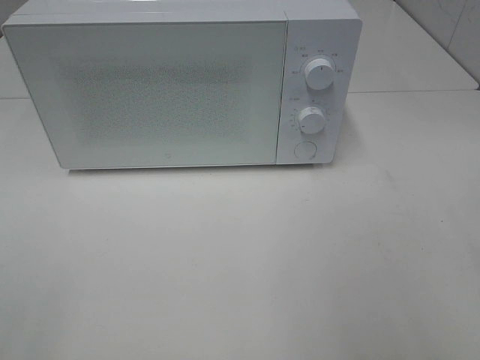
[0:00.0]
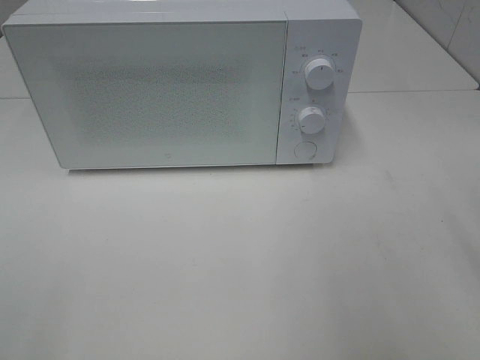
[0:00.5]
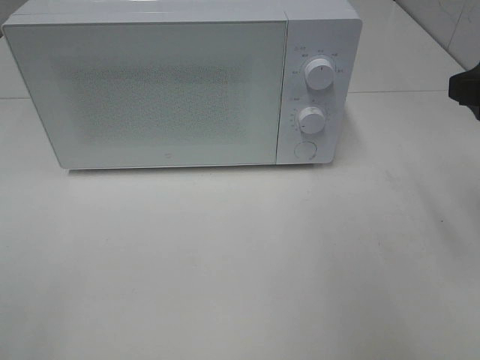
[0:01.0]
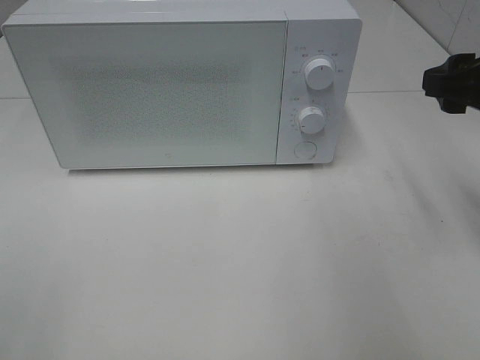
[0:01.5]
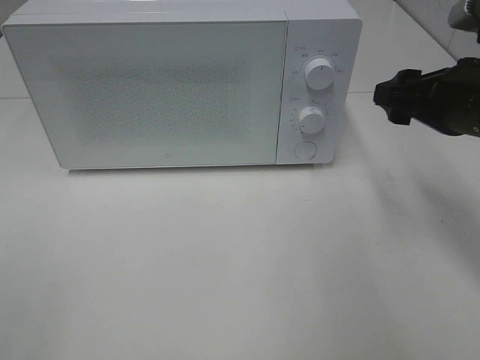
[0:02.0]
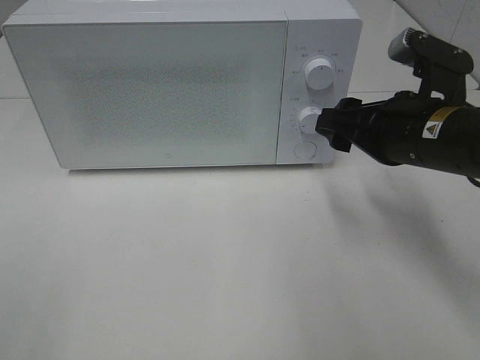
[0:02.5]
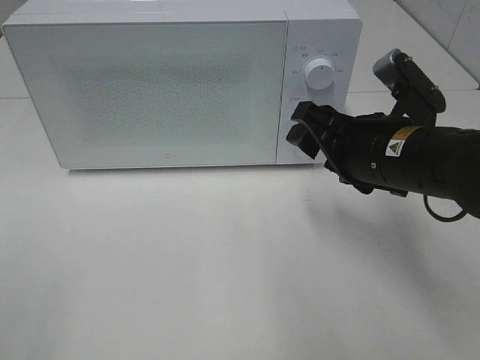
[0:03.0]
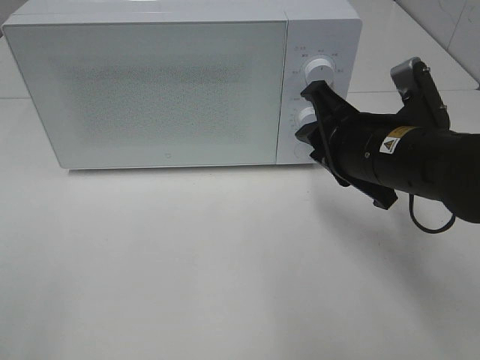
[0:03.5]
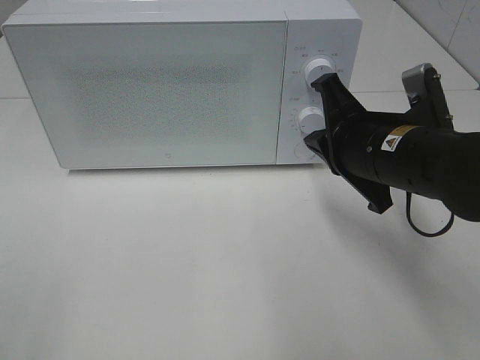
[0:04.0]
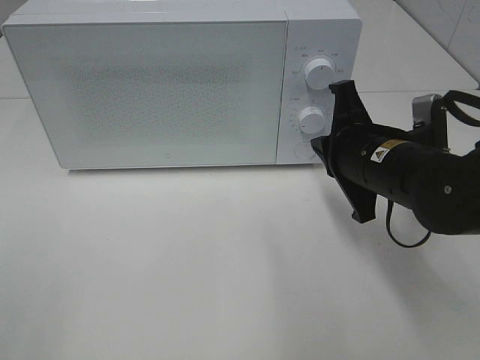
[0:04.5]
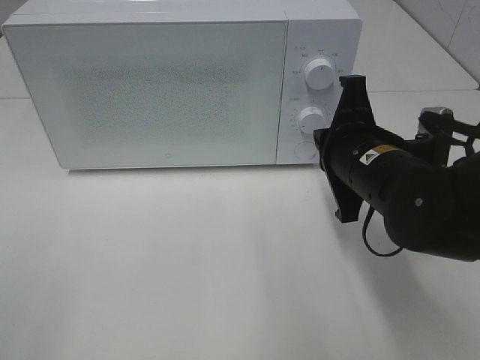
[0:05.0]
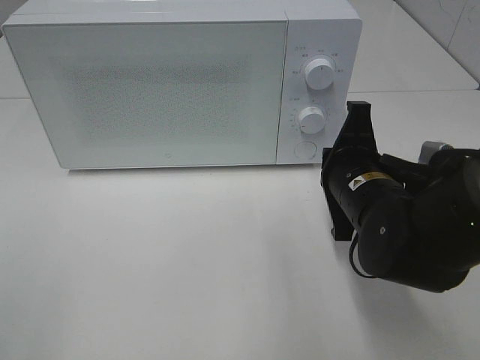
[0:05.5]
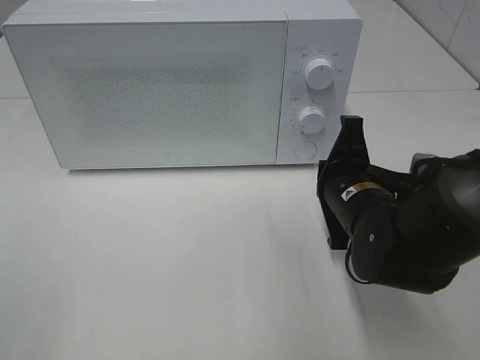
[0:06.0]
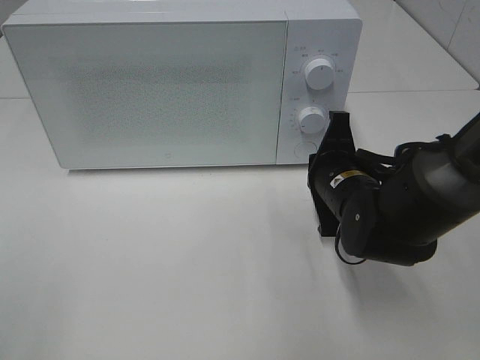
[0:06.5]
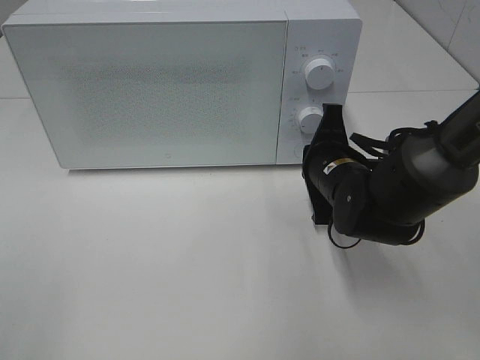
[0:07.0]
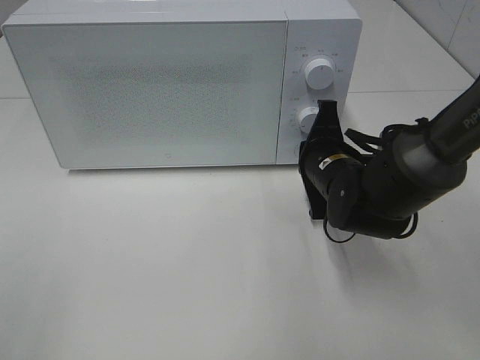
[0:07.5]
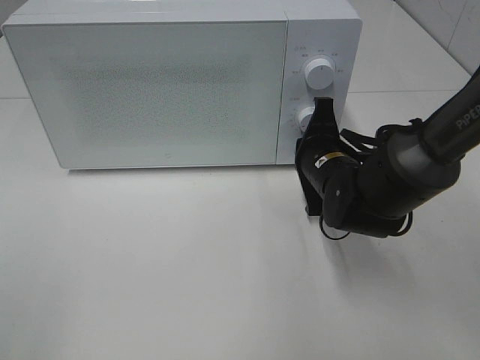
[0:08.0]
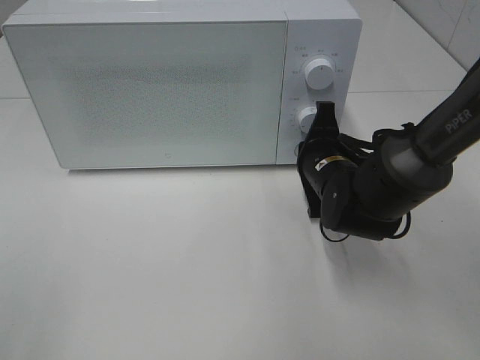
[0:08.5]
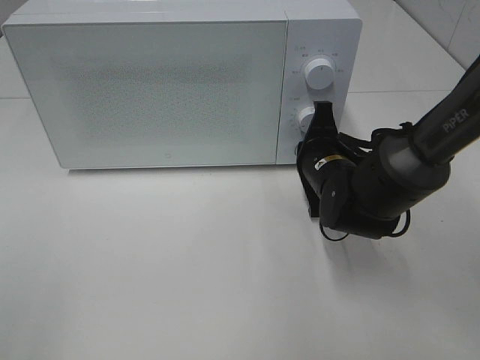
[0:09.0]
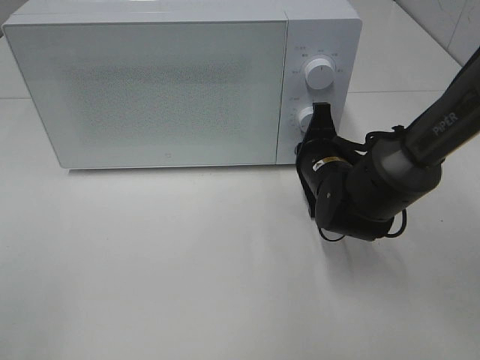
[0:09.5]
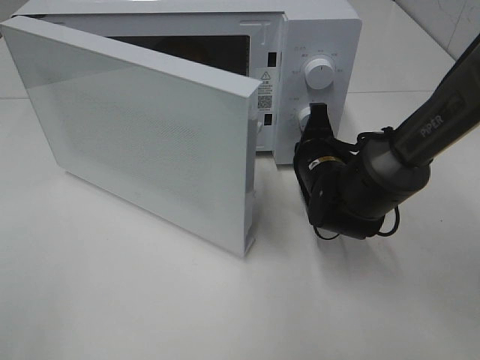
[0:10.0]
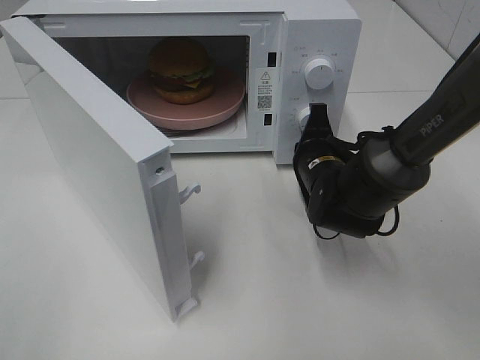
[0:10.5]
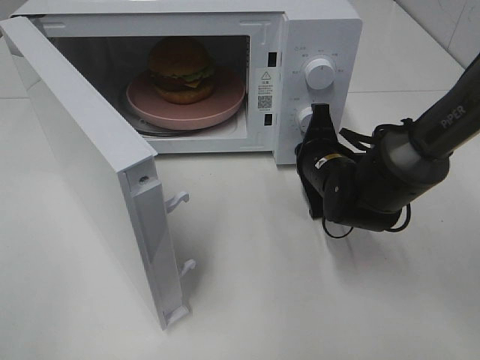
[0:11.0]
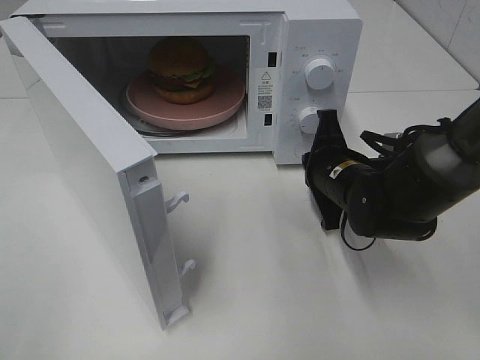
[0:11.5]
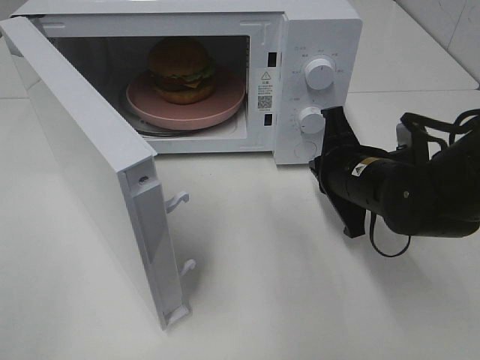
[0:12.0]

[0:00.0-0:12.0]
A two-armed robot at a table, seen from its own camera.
Task of the whole recording: Heat the burger.
Step, 0:00.0 to 0:11.0: Right hand: press the switch.
0:00.0 to 0:02.0: The right gripper travels forward and downward by roughly 20 cm.
0:02.0 to 0:04.0: The right gripper heads to the left, covering about 10 cm, and closes its fingers.
0:04.0 to 0:06.0: The right gripper goes approximately 5 cm downward.
0:06.0 to 0:08.0: The right gripper heads forward, covering some 5 cm.
0:08.0 to 0:10.0: The grippers stay close to where they were, moving slightly.
0:10.0 to 0:12.0: The right gripper is displaced backward by approximately 5 cm.

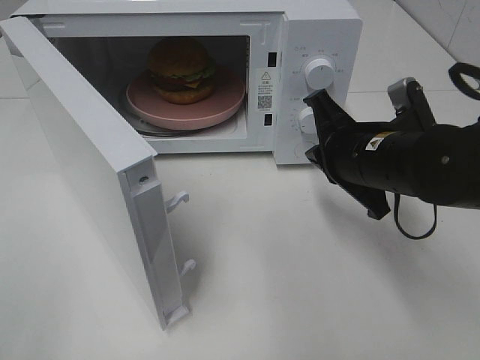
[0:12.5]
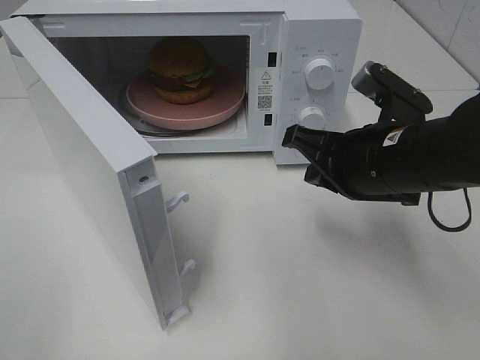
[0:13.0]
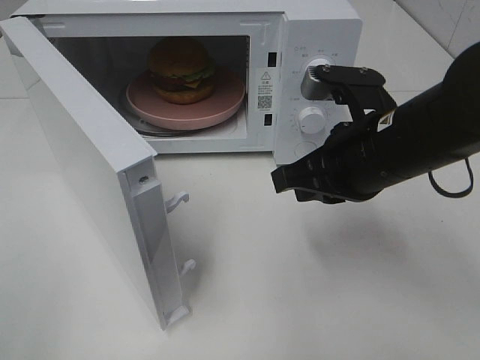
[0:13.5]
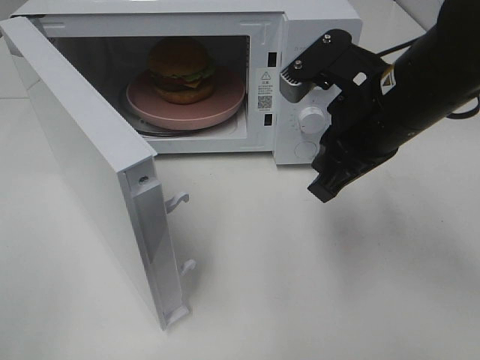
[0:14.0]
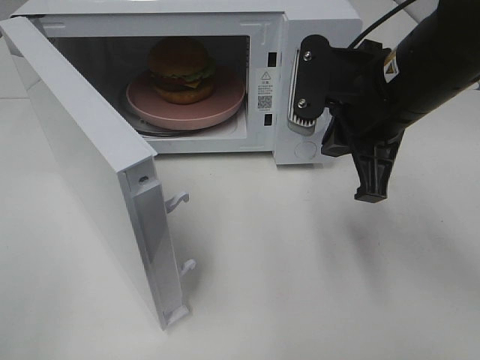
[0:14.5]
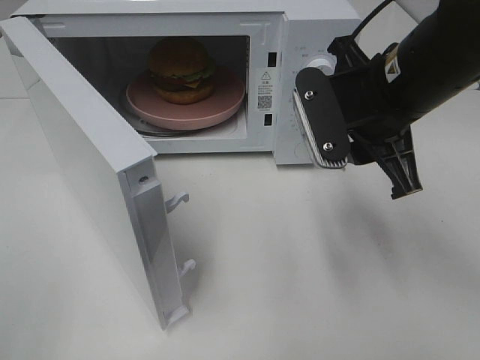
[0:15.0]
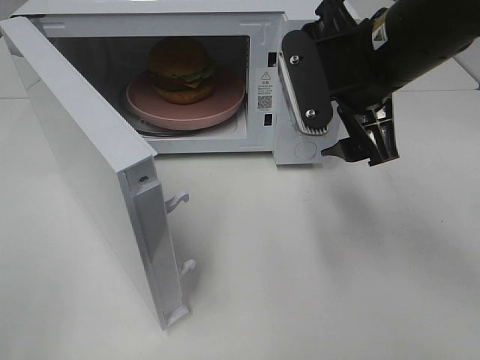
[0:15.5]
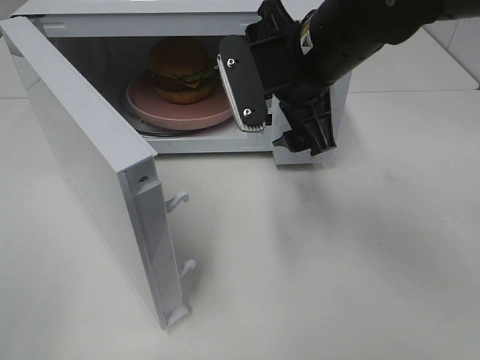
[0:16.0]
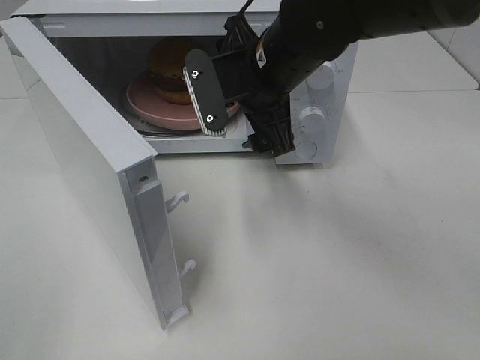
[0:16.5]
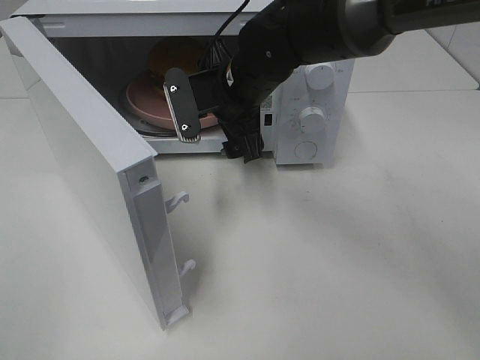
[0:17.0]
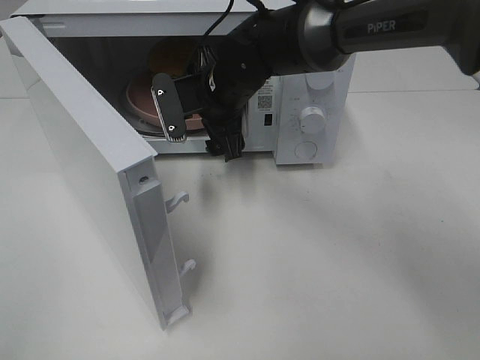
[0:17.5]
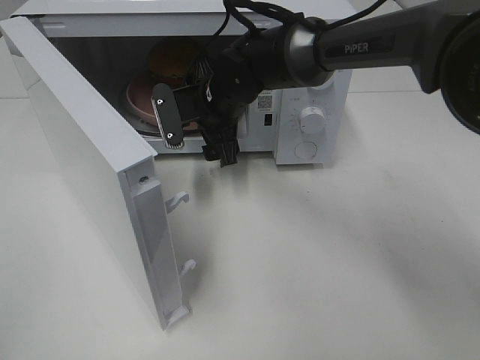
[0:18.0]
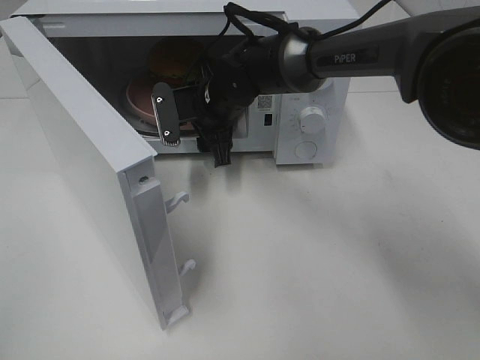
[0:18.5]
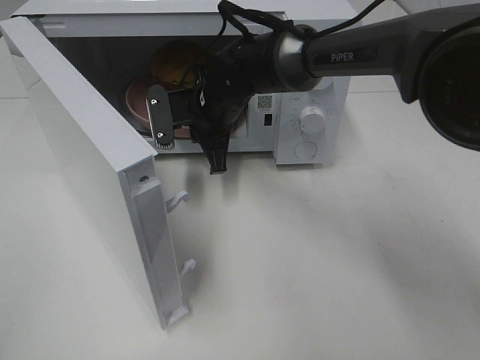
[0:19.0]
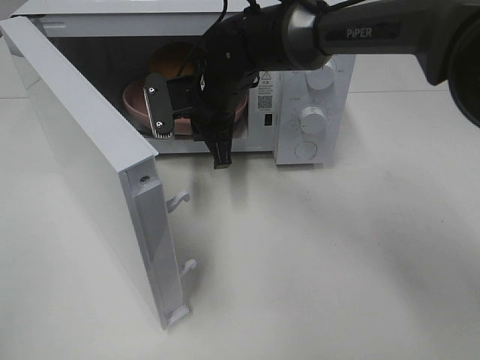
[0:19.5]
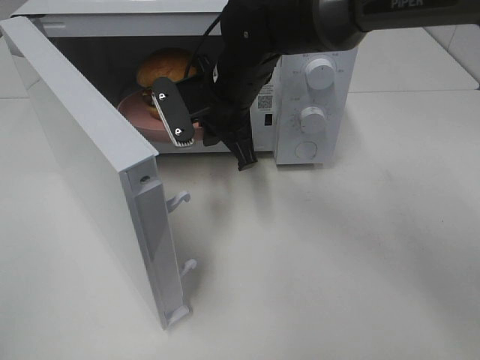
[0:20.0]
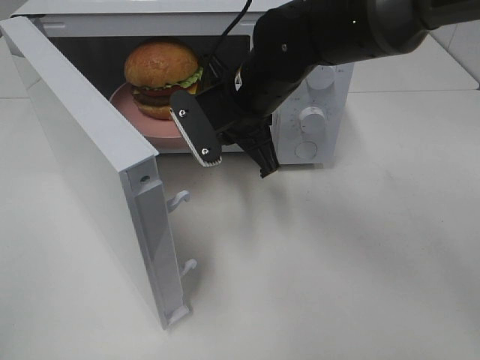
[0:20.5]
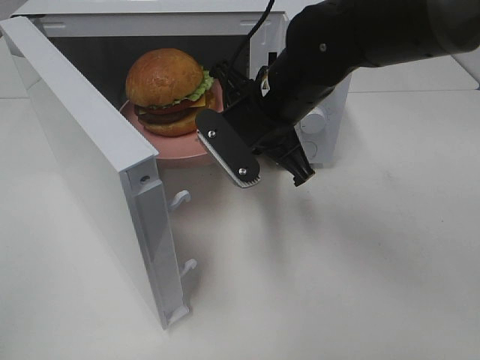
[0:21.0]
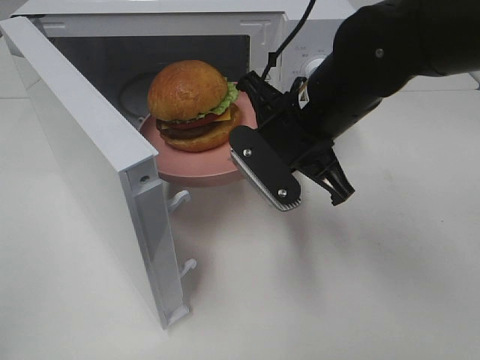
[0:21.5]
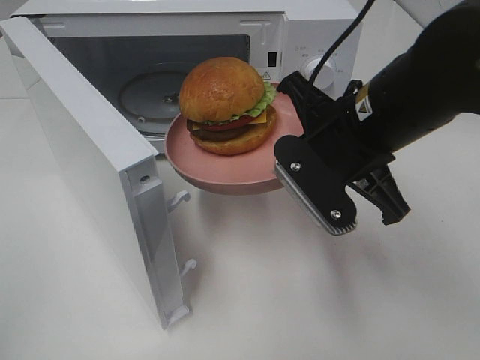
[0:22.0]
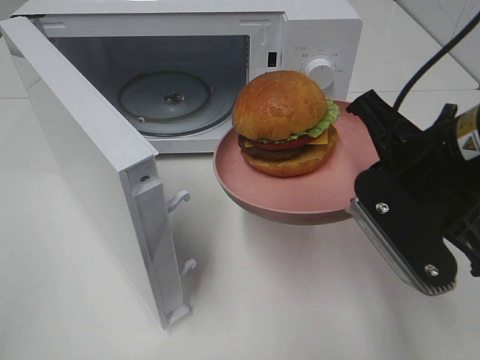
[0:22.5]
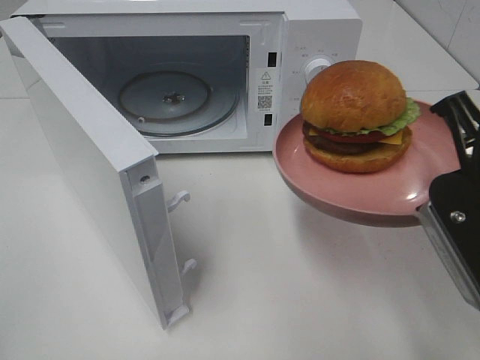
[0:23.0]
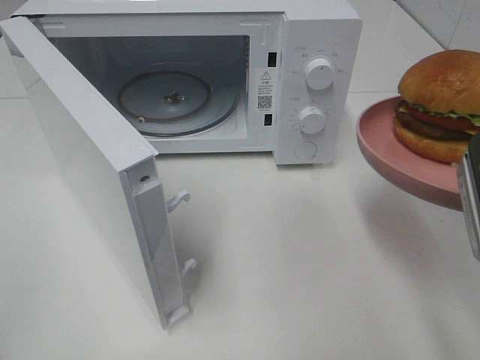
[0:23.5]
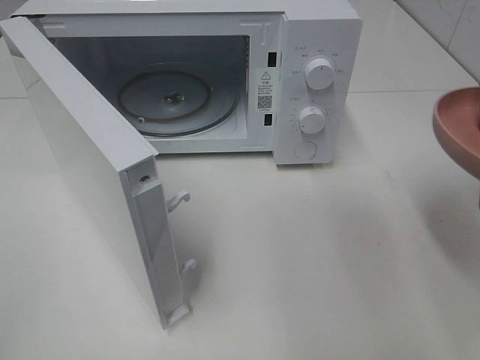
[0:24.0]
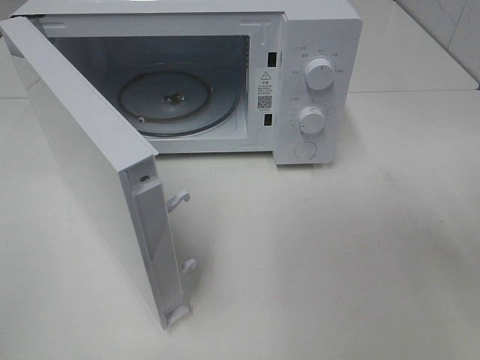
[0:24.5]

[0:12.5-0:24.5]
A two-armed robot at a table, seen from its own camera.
Task of the whole recording: Heat the burger.
Step, 0:12.5 to 0:19.0: Right hand: grab the plate with the hamburger.
0:12.5 to 0:14.5: The right gripper goes roughly 10 cm upward.
0:14.5 to 0:16.5: The right gripper heads to the left and forward, covering about 10 cm, and opens its fingers.
0:16.5 to 0:18.5: The right gripper moves downward, forward and to the left, some 15 cm.
0:18.5 to 0:20.5: The right gripper travels backward and upward by roughly 10 cm, and closes up.
0:20.5 to 0:22.5: The right gripper travels backward and to the right by about 20 cm.
0:22.5 to 0:24.5: The right gripper heads to the right, covering approximately 10 cm.

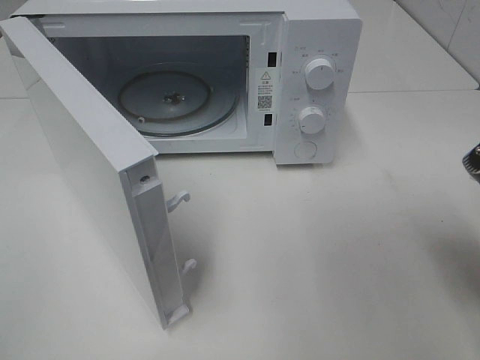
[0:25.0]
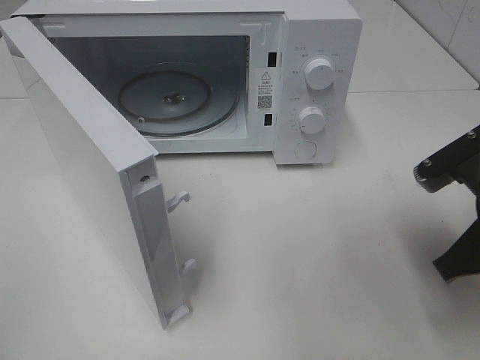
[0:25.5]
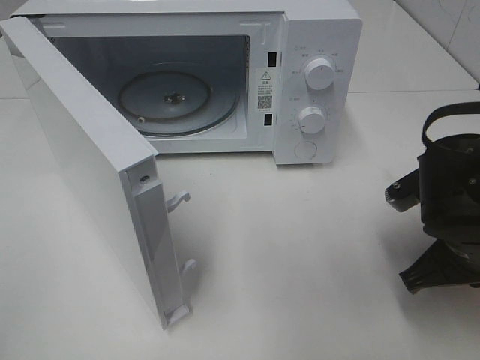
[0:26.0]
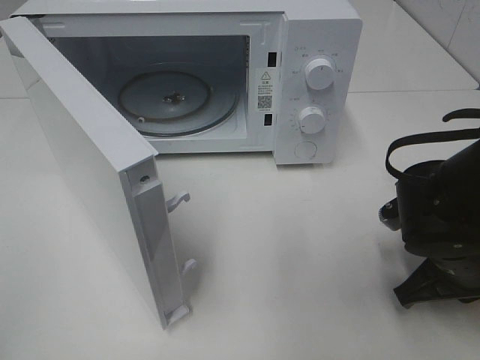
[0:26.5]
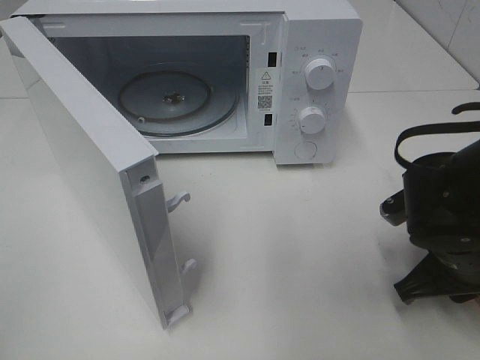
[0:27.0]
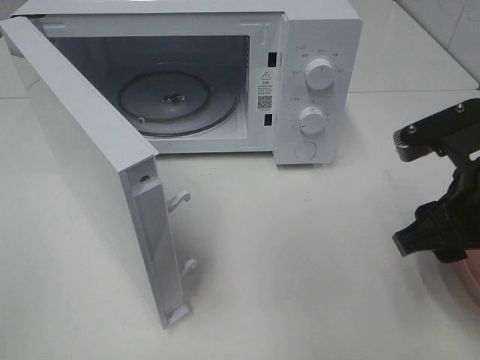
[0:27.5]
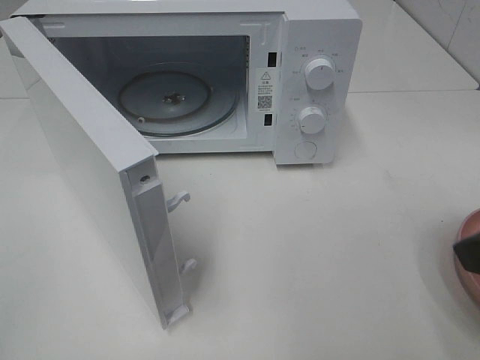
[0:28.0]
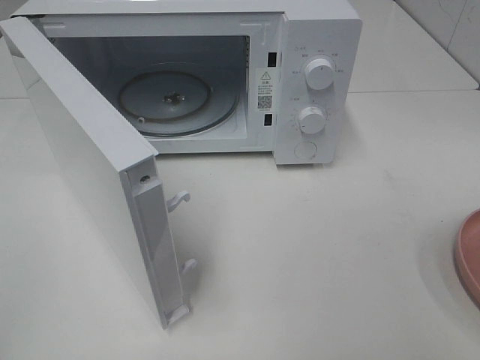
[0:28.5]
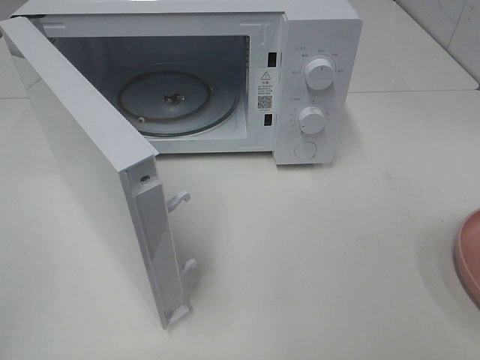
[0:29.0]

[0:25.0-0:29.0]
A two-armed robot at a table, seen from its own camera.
Task of the whole recording: Heat the burger.
0:25.0 to 0:27.0: The right gripper heads downward, covering roughly 10 cm.
0:27.0 to 0:29.0: The right gripper goes approximately 30 cm backward, upward and to the right, and opens.
